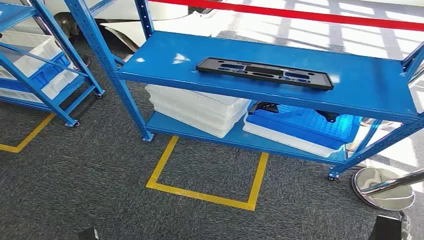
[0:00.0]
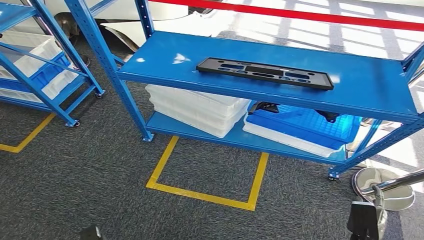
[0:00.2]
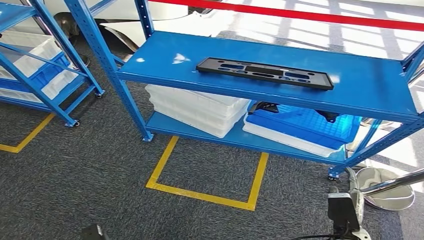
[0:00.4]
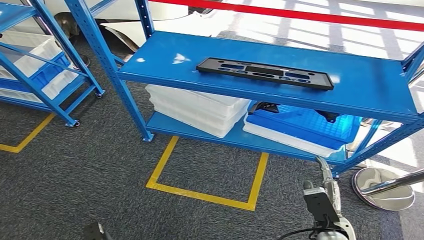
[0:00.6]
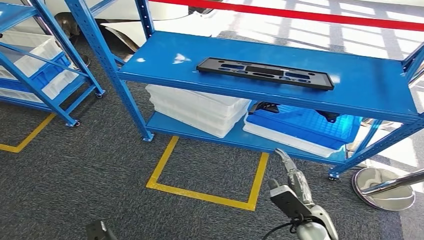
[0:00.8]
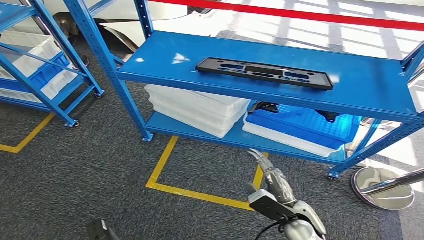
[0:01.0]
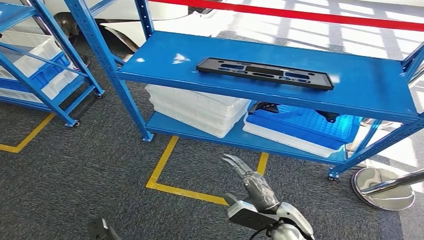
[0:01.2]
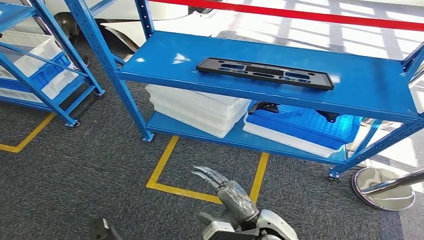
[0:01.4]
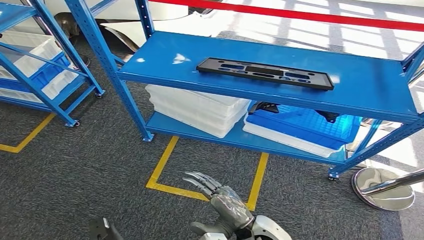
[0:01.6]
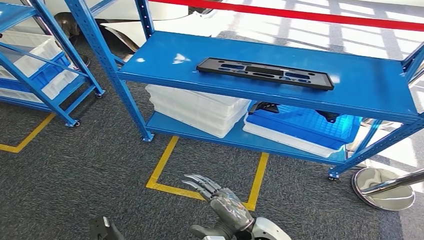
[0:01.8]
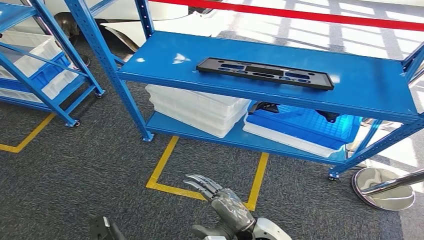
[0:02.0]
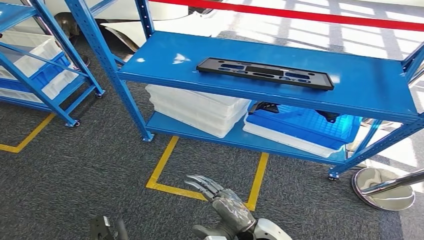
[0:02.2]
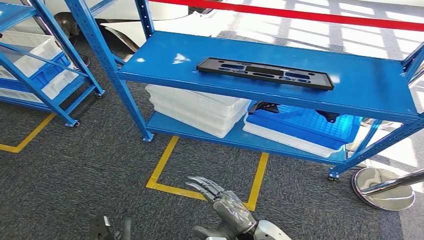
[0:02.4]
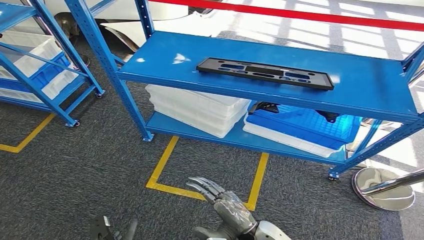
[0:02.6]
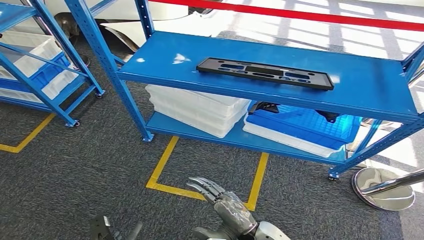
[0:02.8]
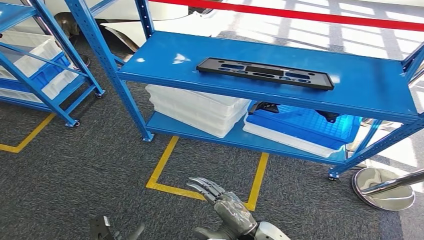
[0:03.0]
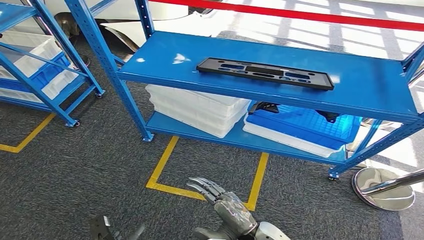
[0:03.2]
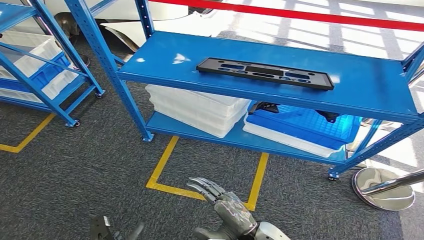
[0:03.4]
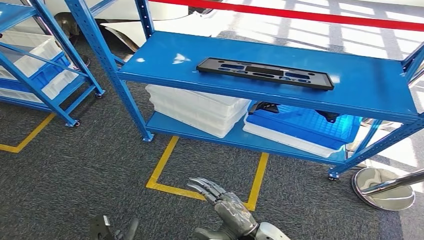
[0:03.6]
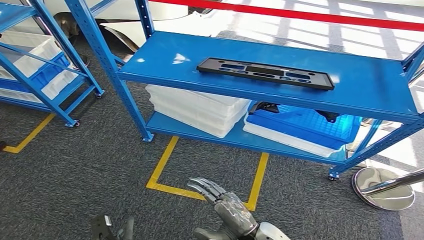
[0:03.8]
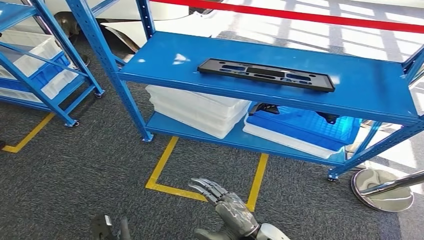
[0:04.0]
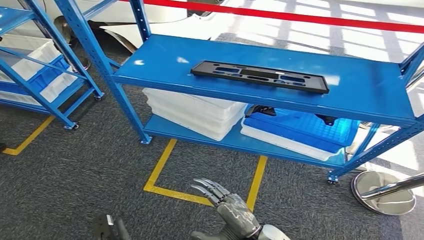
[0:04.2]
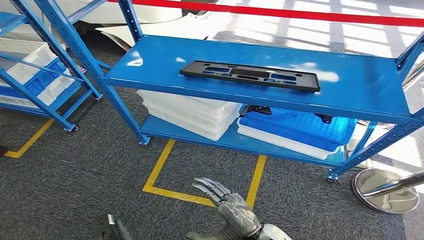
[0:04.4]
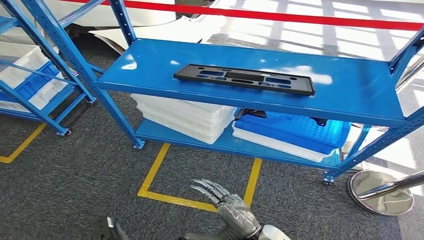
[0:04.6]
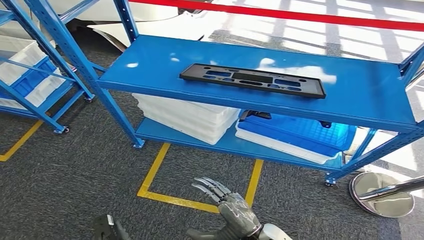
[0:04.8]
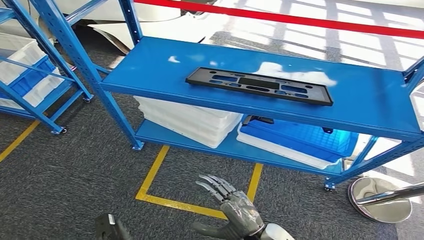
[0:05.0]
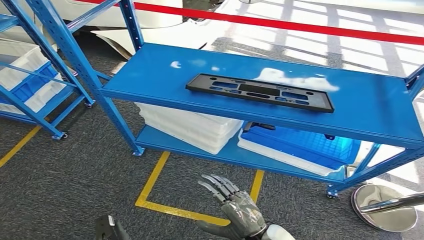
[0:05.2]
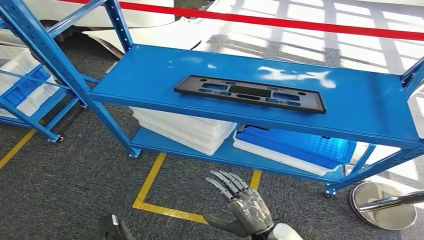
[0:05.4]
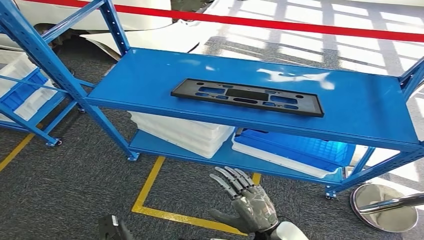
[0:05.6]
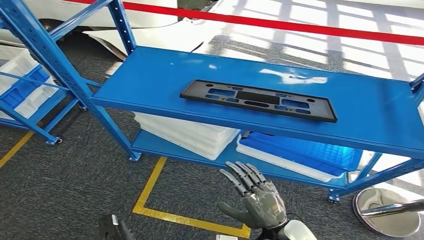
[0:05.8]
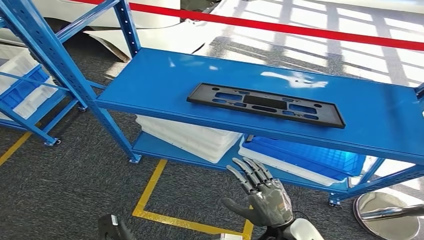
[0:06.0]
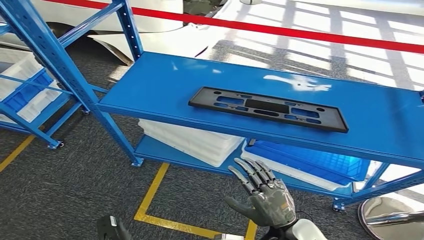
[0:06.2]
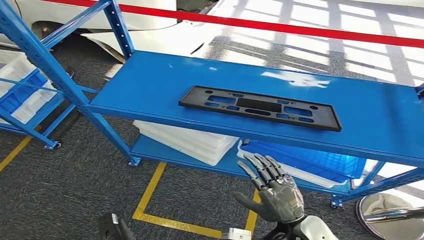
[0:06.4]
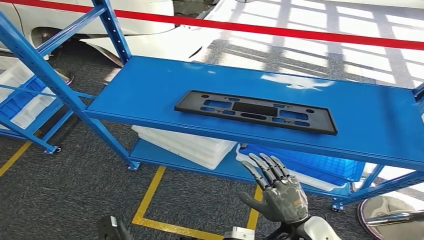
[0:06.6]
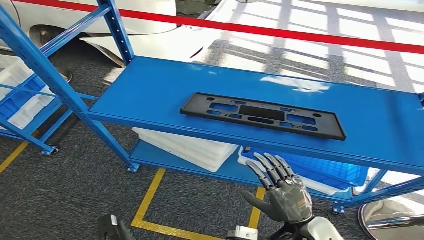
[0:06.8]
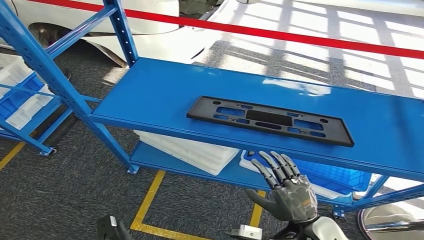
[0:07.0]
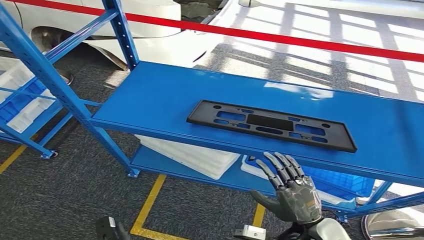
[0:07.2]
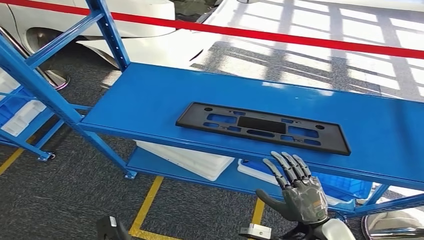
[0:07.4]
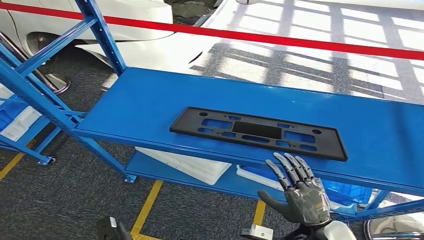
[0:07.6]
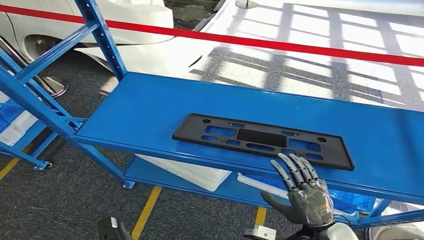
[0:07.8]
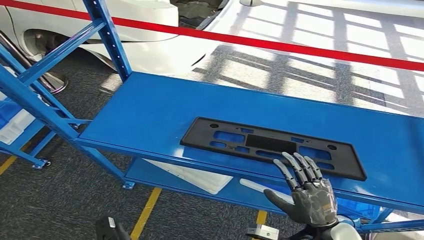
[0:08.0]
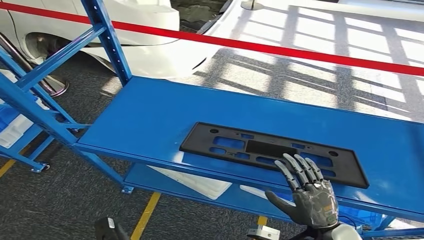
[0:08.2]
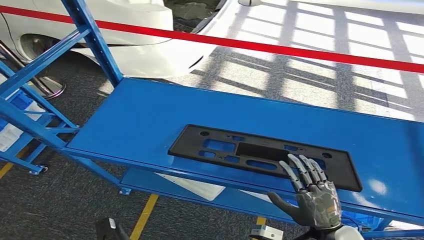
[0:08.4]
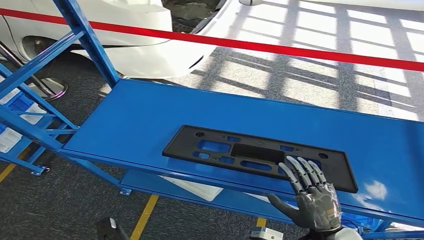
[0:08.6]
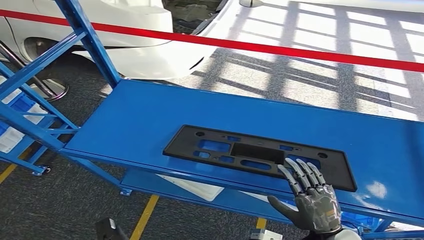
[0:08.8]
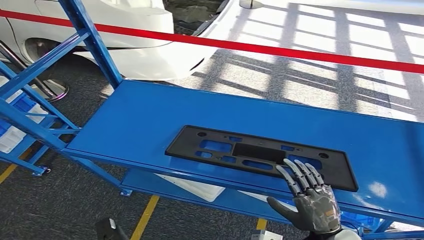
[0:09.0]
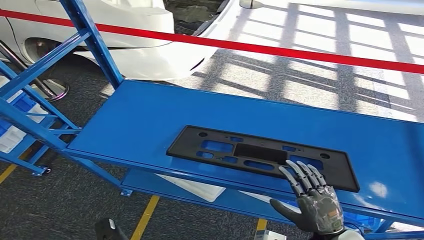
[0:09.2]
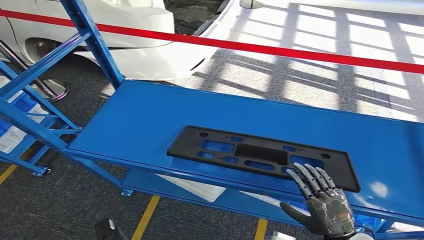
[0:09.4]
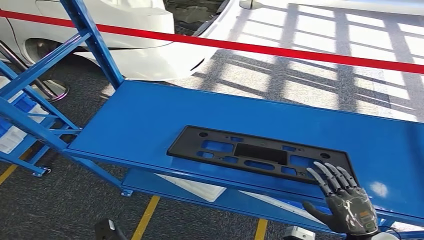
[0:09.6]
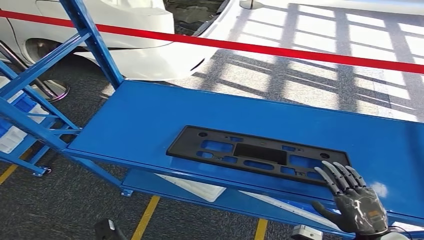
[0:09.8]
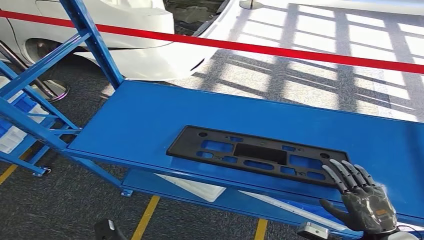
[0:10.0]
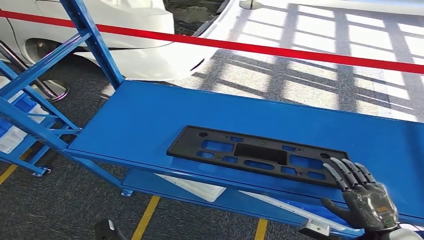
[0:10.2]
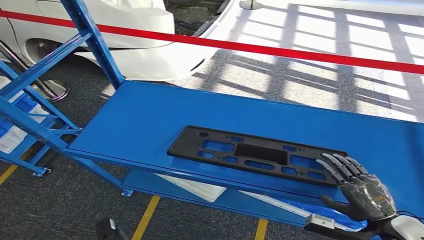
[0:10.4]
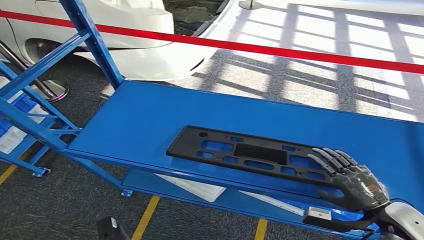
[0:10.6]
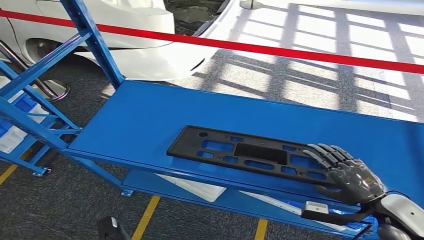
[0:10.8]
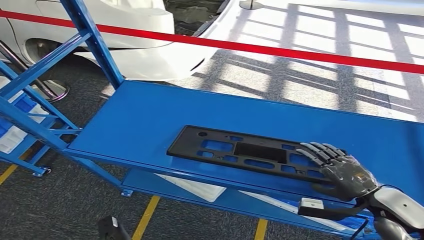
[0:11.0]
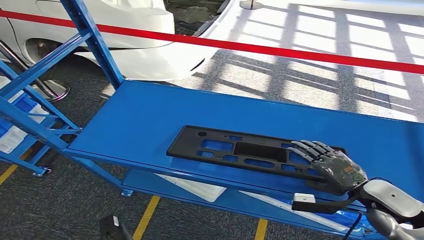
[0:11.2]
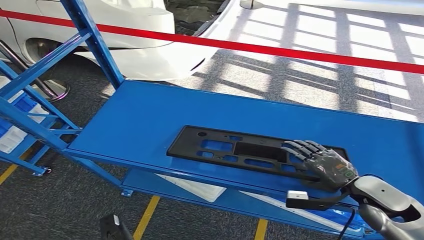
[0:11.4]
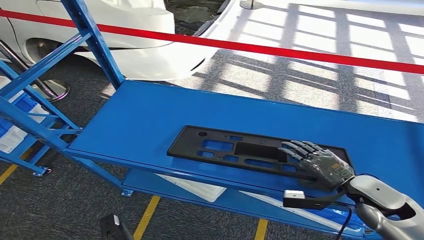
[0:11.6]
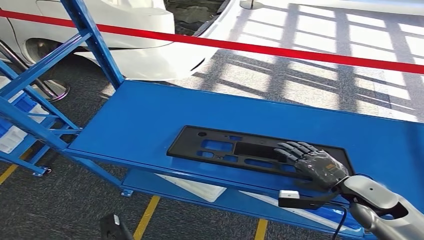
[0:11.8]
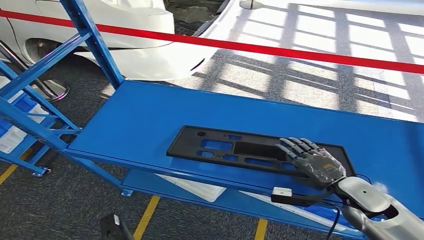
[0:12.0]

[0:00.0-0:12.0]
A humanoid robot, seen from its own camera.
0:01.6 to 0:03.0: There are only small adjustments of the hands.
0:09.0 to 0:10.4: The right hand shifts roughly 10 cm to the right.
0:10.4 to 0:12.0: The right hand shifts about 10 cm forward and to the left.

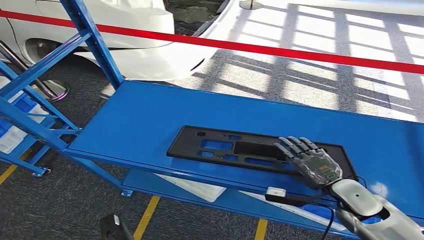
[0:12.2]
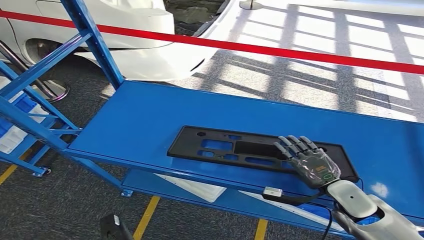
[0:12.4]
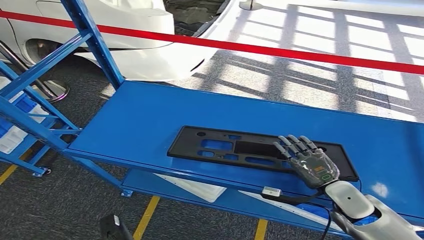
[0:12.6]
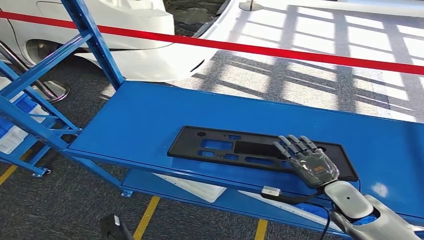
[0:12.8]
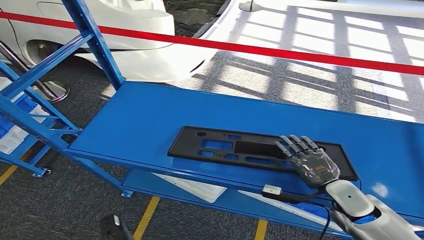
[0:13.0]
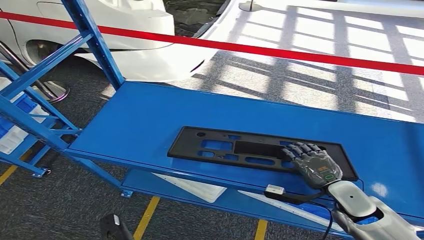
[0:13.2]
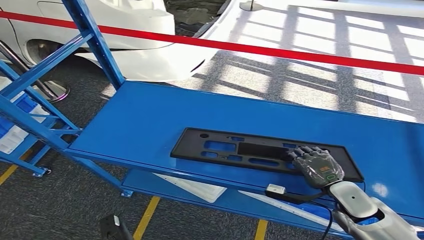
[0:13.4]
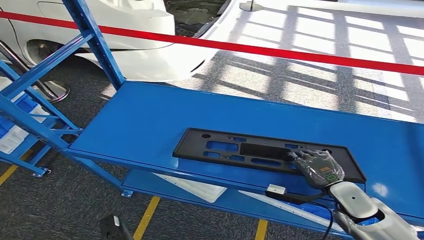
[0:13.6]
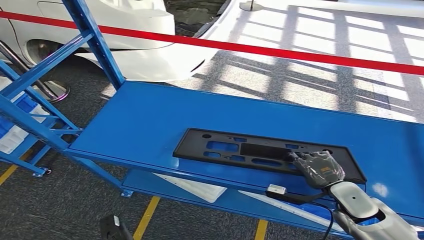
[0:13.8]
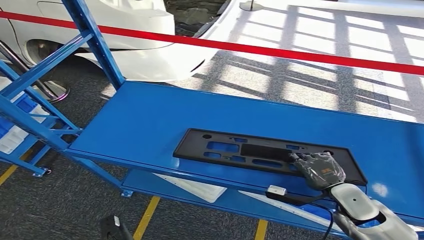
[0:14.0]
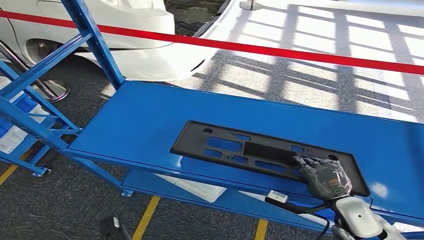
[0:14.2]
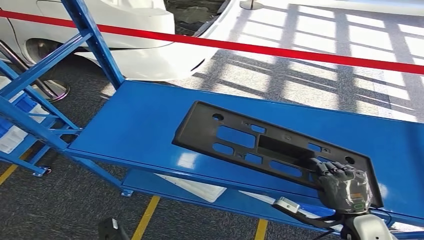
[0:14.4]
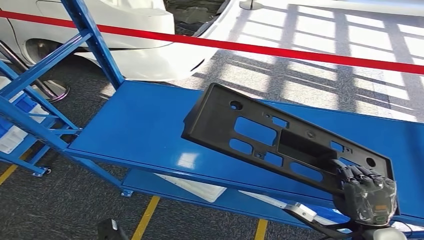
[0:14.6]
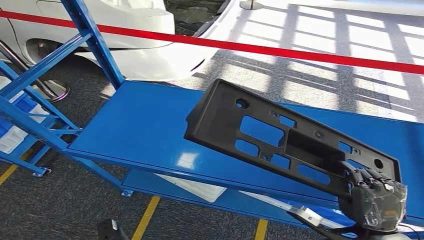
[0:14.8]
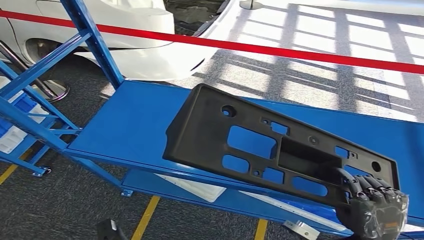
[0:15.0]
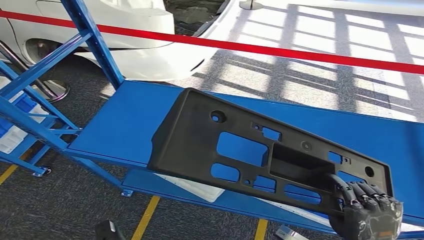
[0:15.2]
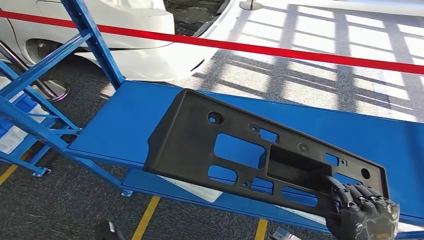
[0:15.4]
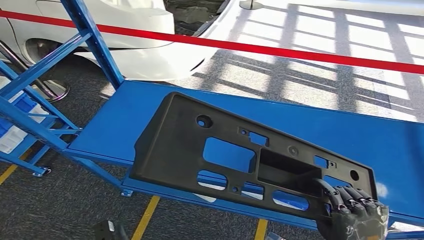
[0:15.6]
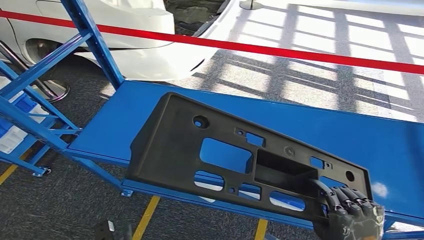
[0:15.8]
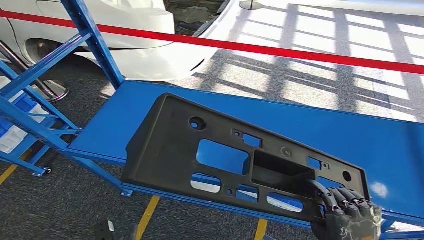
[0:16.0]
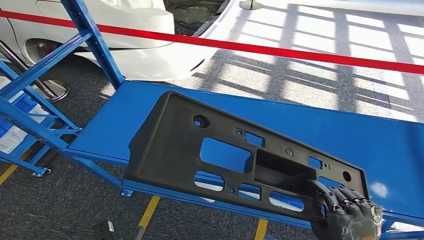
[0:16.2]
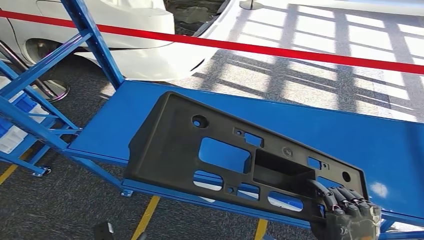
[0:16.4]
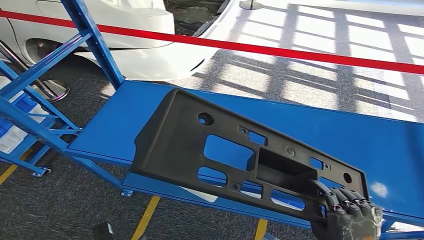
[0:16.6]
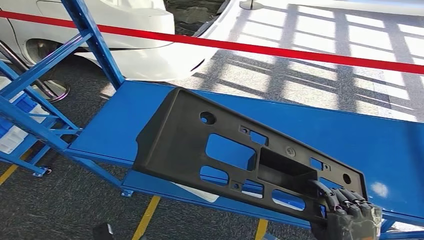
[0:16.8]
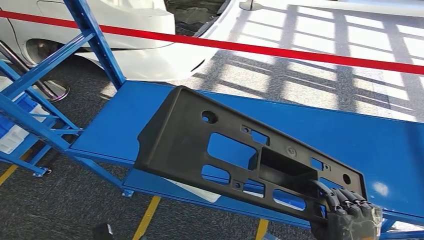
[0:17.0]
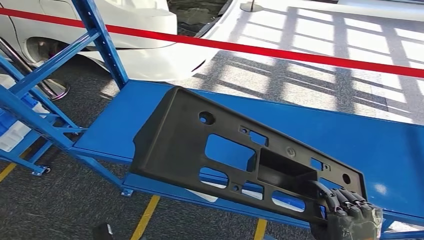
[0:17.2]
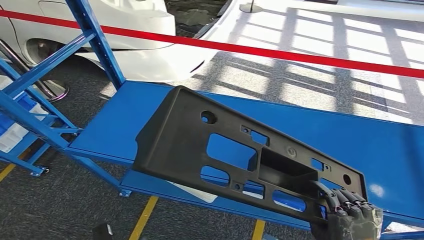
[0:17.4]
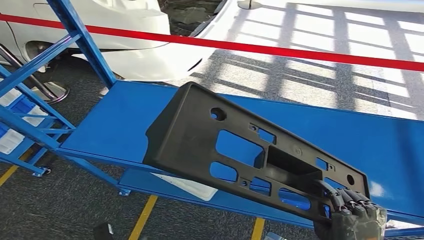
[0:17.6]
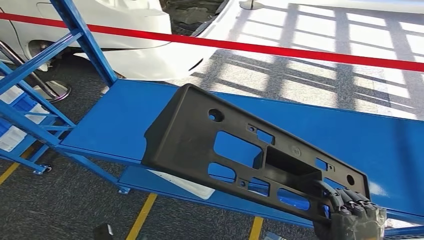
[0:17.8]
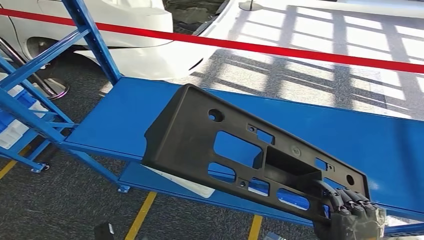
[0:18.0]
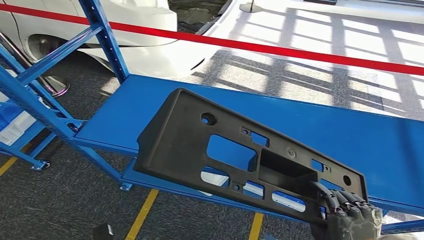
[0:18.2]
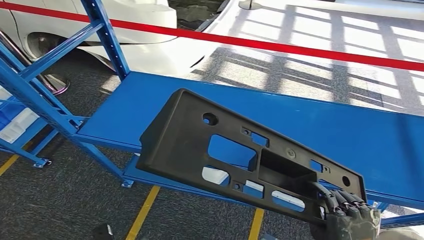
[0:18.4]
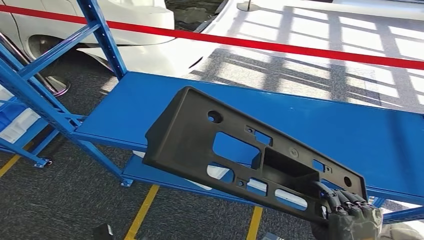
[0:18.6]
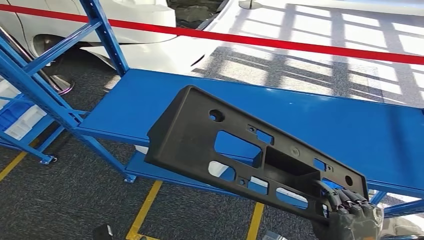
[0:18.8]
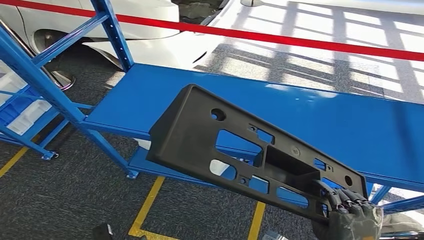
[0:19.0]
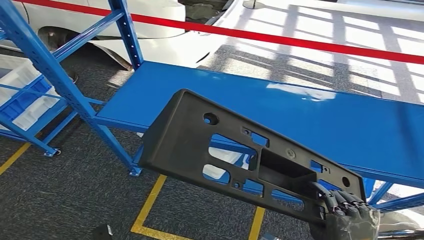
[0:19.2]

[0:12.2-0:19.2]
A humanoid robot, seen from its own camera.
Step, 0:12.2 to 0:15.8: Pick up the large material from the shelf.
0:12.2 to 0:13.6: The hands stay close to where they were, moving slightly.
0:15.0 to 0:16.4: The right hand moves approximately 5 cm.
